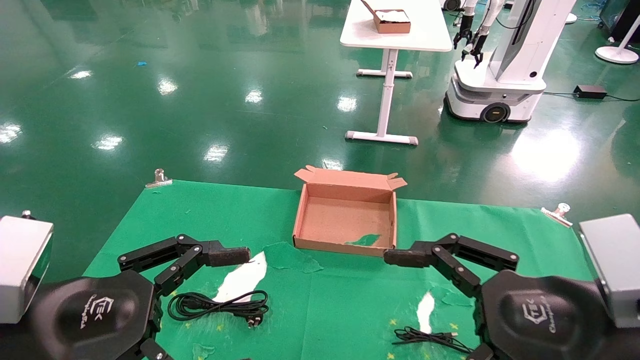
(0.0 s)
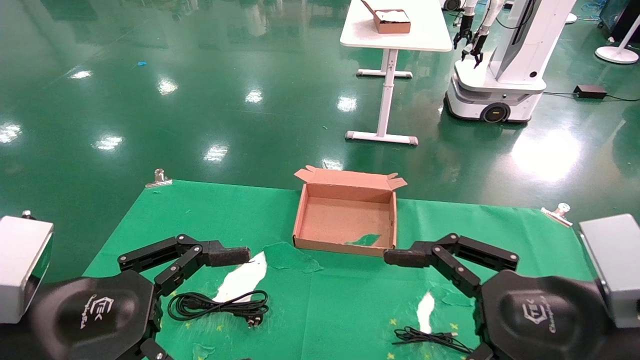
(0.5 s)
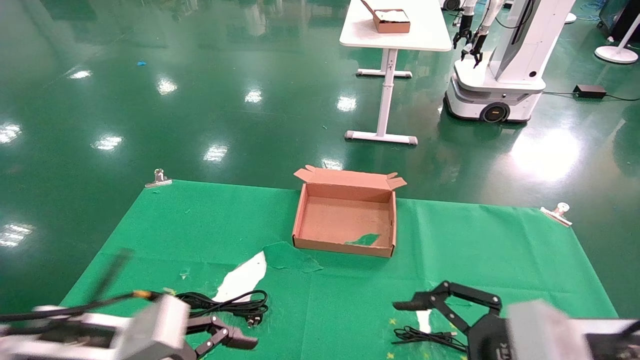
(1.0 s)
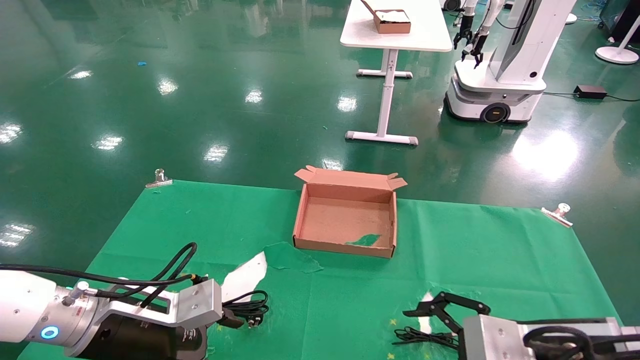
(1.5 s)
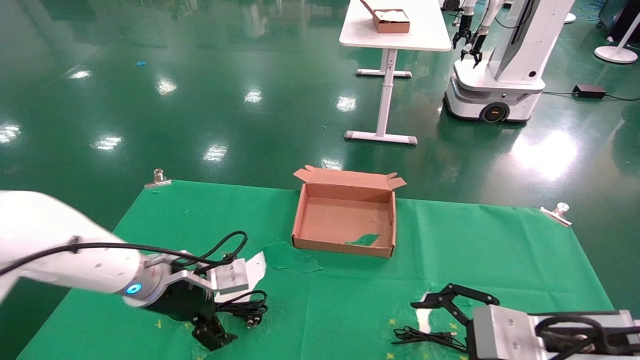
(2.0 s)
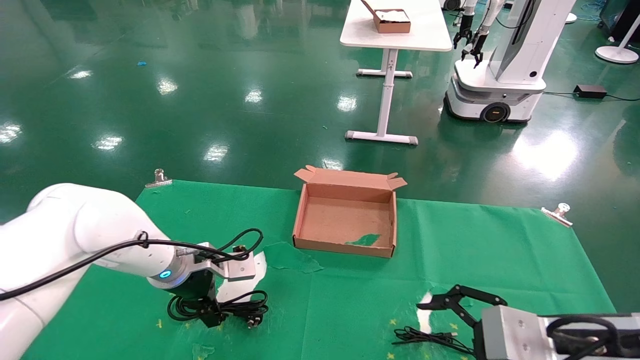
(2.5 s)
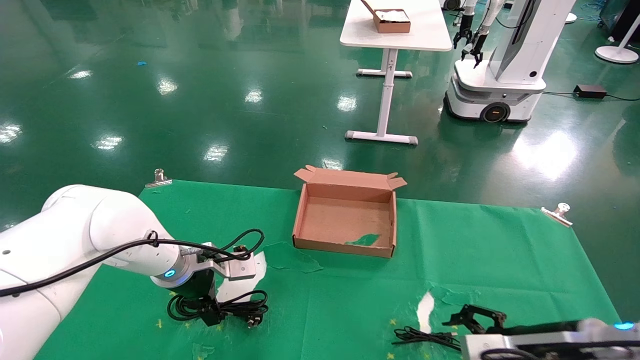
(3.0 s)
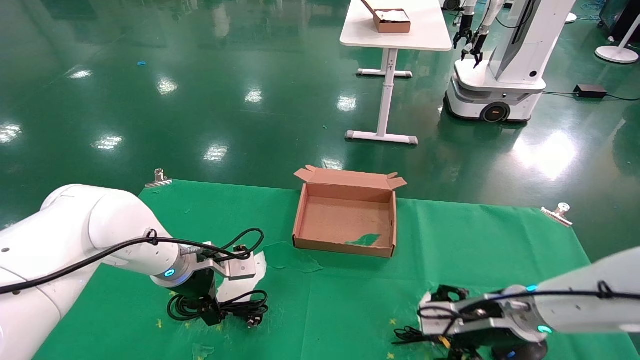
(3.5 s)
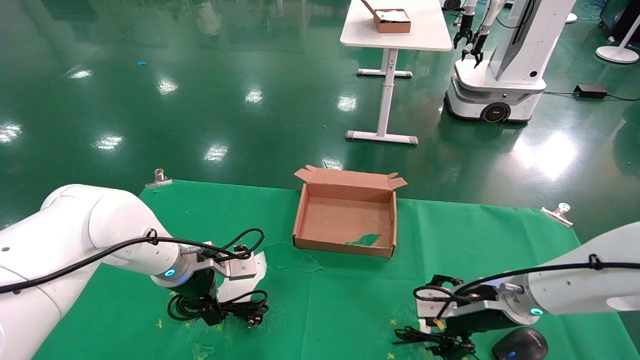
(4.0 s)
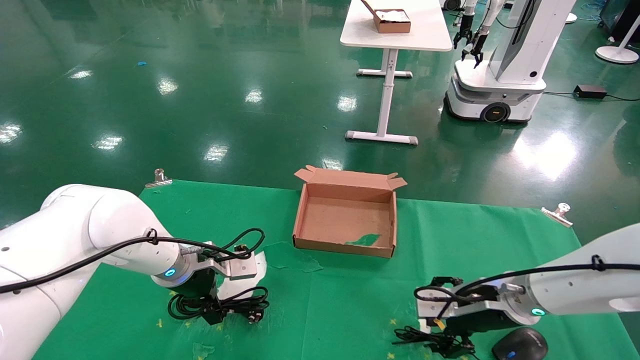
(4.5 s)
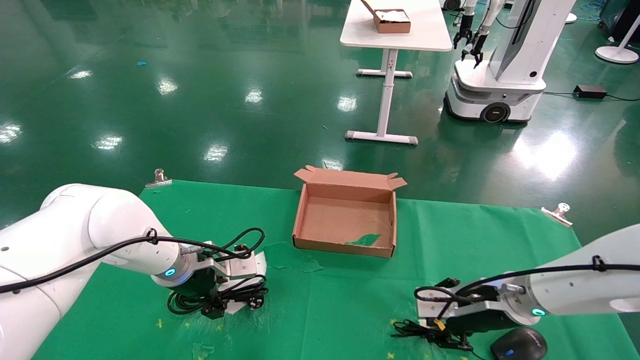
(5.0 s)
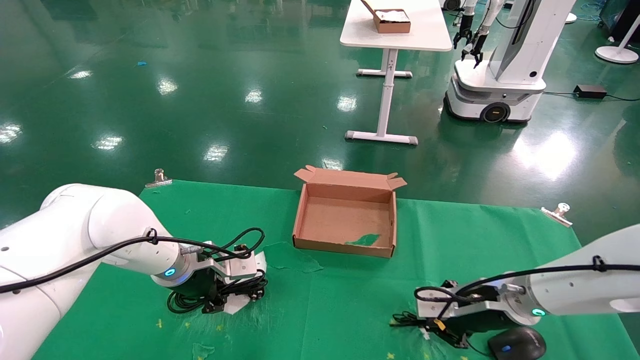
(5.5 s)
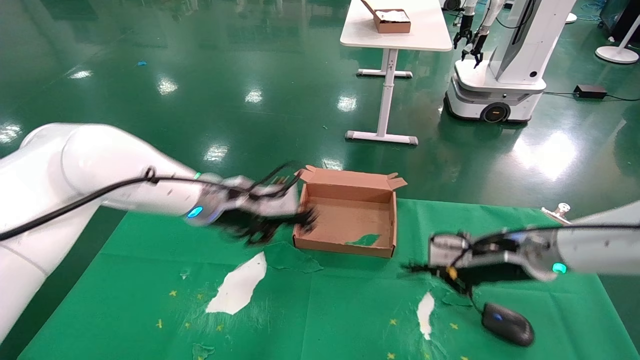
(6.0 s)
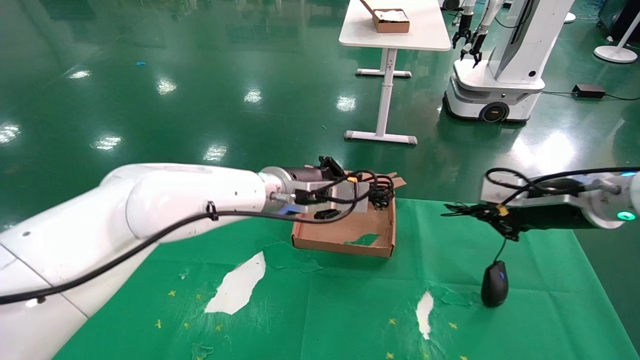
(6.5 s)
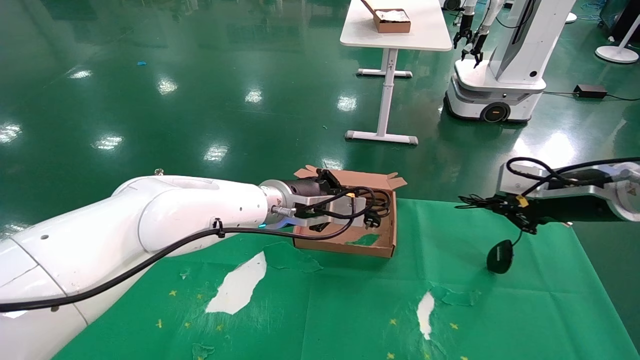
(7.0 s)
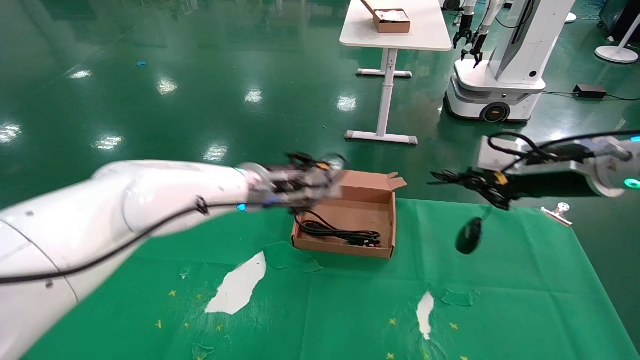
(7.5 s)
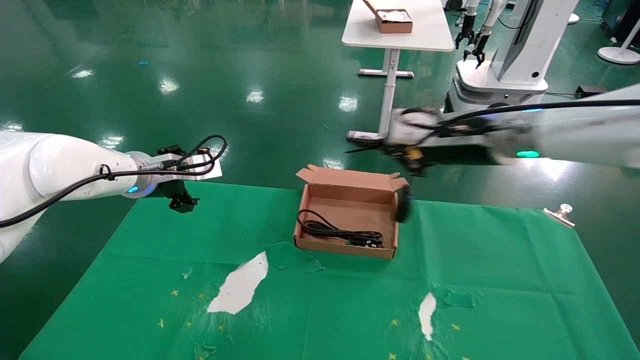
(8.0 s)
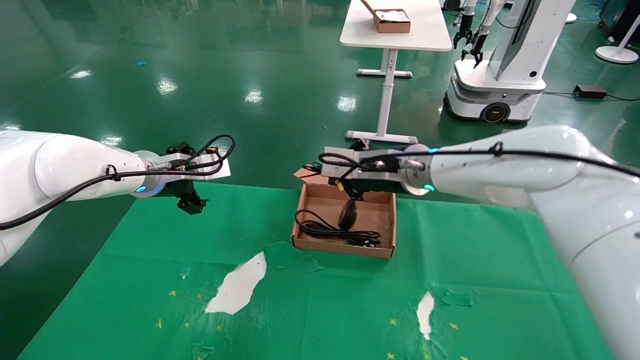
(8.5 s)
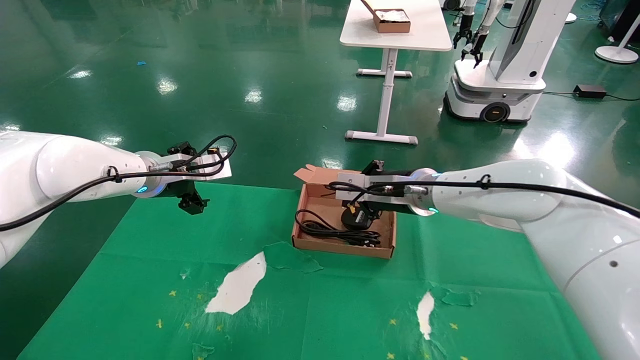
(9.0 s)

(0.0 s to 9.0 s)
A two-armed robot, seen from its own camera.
Step, 1.0 s - 6.0 s: Grab and lift both the mouse and power cord from the accessory packaging area at the same time.
0.0 s - 2.0 s: The left gripper moves forward, about 20 cm. Meanwhile the right gripper travels downward and forward by roughly 10 cm.
2.0 s - 4.5 s: The left gripper shifts approximately 5 cm forward. Meanwhile the right gripper moves forward, some 15 cm.
4.5 s - 7.0 s: The left gripper moves to the right and upward, some 20 cm, and closes. Meanwhile the right gripper travels upward and to the right by about 20 cm, and closes up.
7.0 s - 9.0 s: The right gripper moves to the left and forward, some 25 cm; the left gripper moves to the left, approximately 20 cm, and opens up.

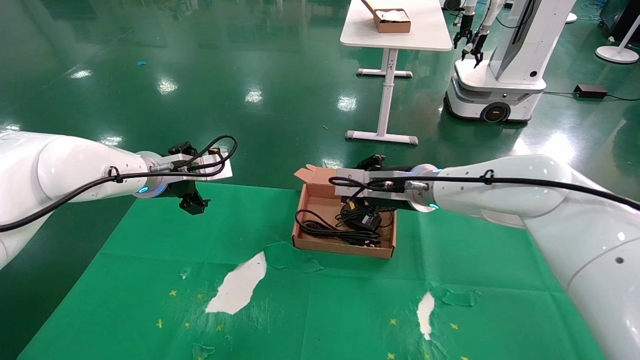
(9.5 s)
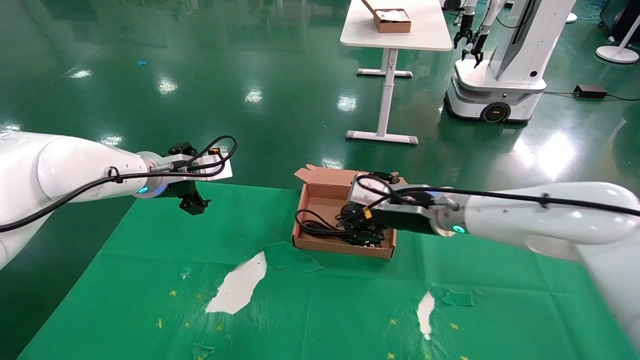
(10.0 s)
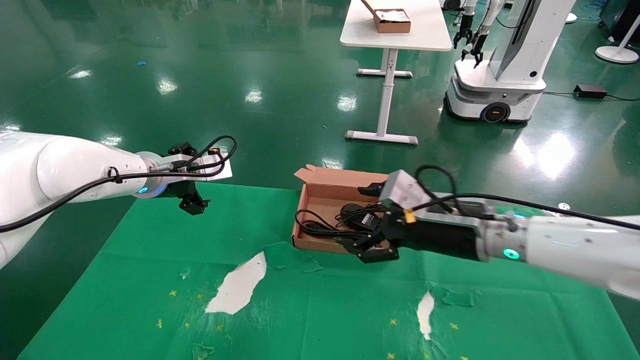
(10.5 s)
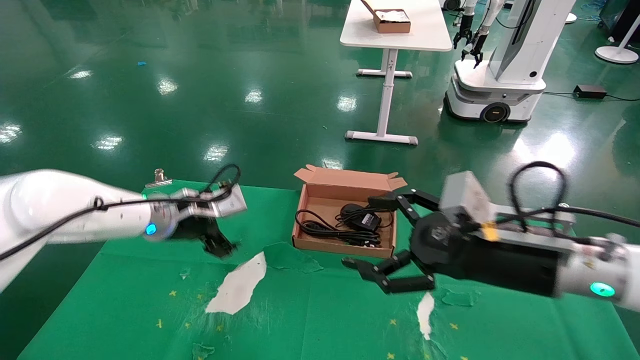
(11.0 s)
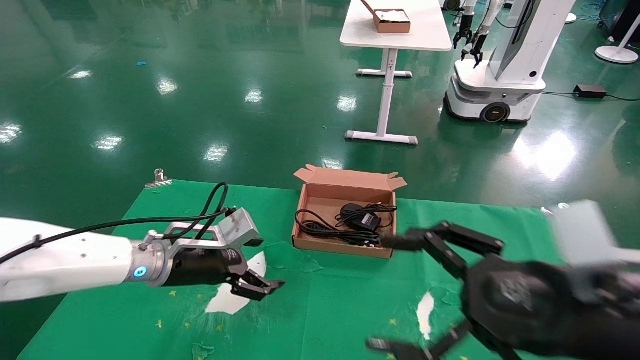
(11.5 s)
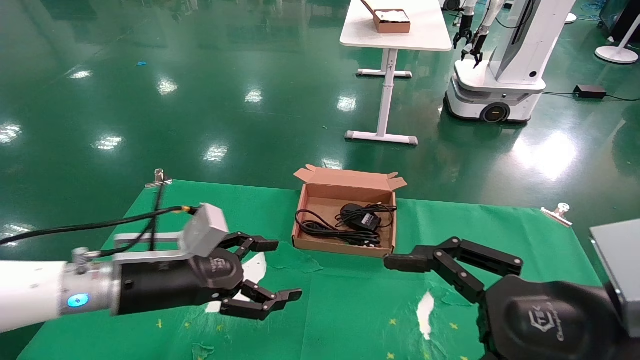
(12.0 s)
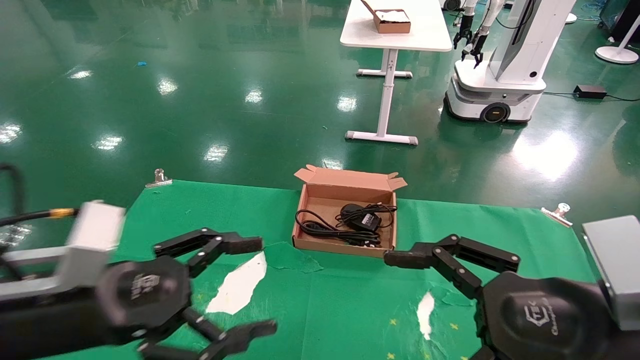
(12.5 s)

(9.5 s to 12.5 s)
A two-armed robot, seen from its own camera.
9.5 s - 11.0 s: The right gripper moves backward and to the right, approximately 20 cm, and opens up; the left gripper moves downward, some 5 cm.
11.0 s - 12.5 s: The right gripper goes approximately 10 cm backward. Meanwhile the left gripper heads backward, covering roughly 25 cm.
